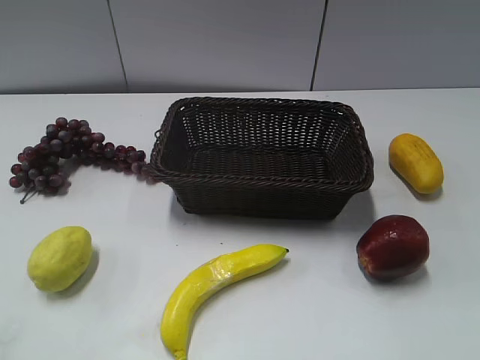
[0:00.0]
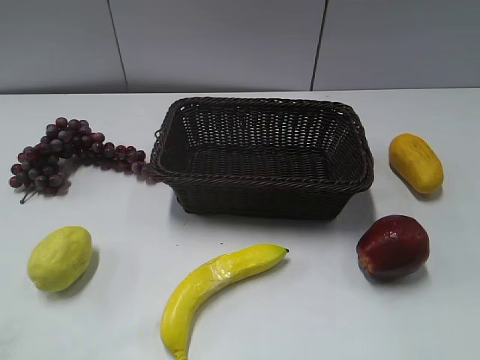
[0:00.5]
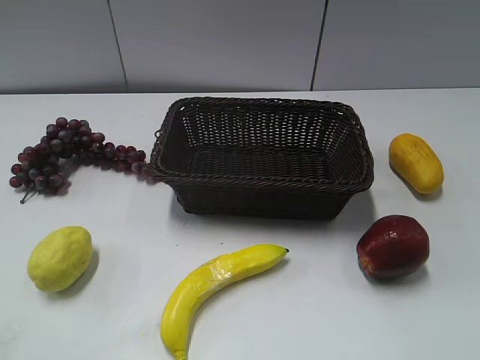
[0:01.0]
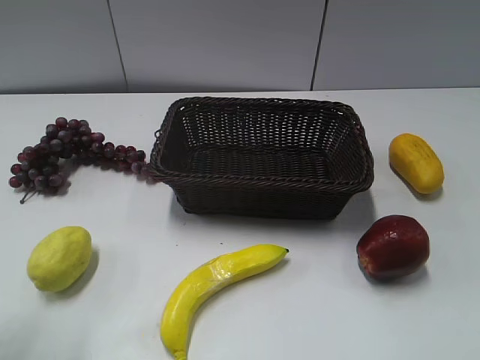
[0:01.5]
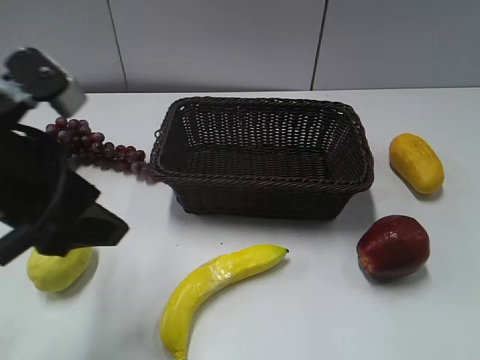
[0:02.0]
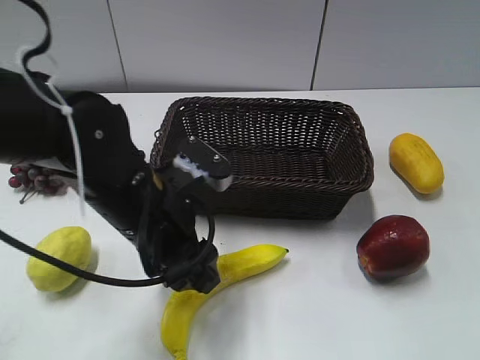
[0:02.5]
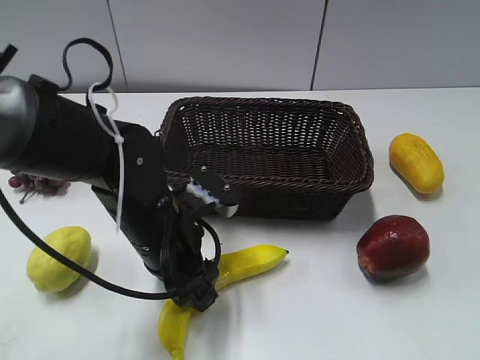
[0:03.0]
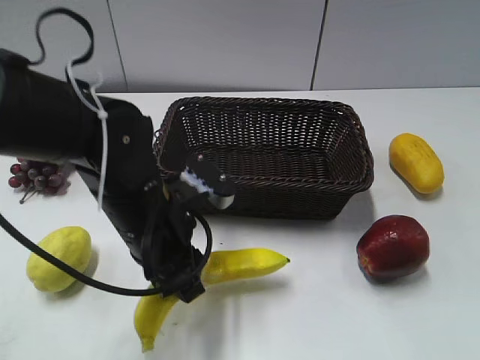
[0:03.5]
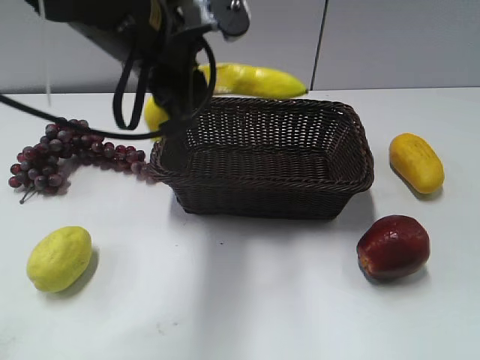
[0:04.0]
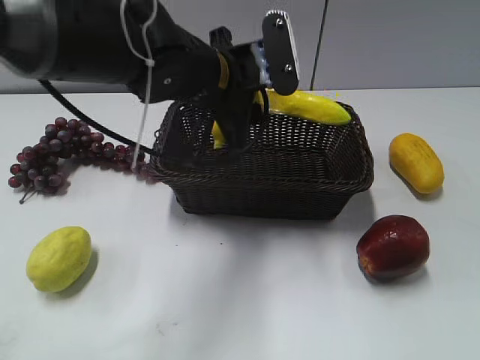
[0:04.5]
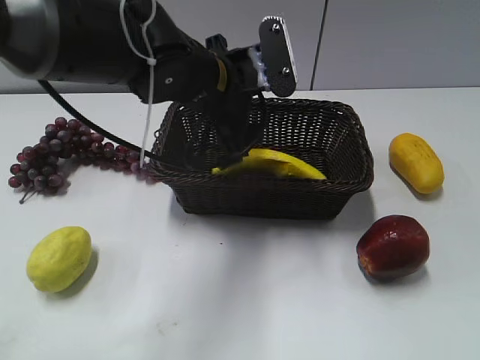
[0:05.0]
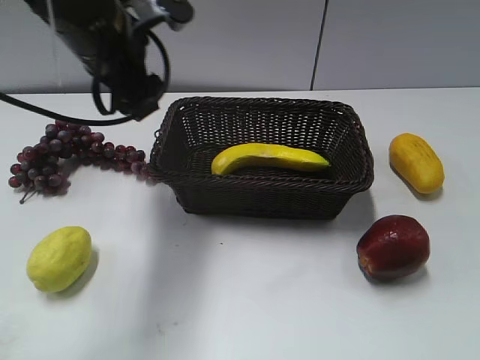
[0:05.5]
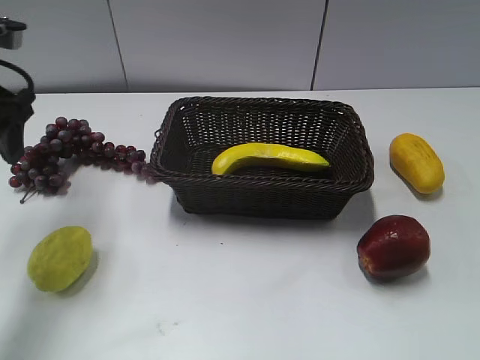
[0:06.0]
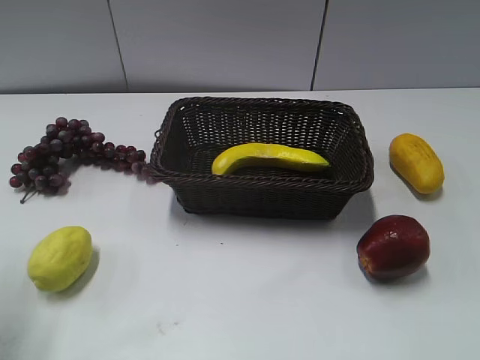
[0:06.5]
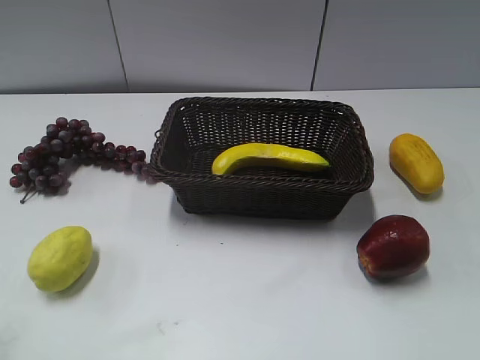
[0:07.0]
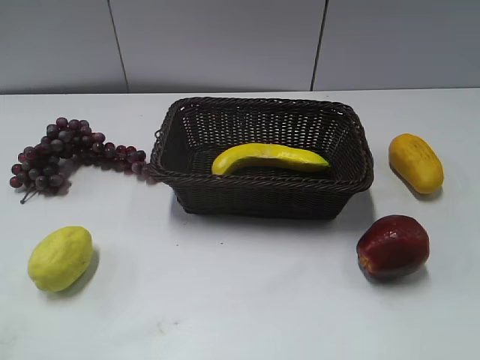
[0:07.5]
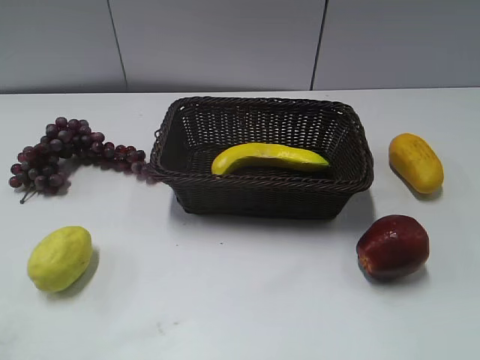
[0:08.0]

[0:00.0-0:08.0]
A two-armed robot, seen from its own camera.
Step, 0:02.0 to 0:03.0: Grasp the banana with left gripper.
Step, 0:03.5 to 0:05.0: Place the banana in the basket with left gripper.
0:02.0 to 0:04.0: The left gripper is displaced forward and to the right by roughly 15 cm, travels downward and back again, roughly 15 cm each way, and closes.
0:04.0 to 0:06.0: The left gripper is displaced to the left by about 20 cm, and opens.
0:06.0 to 0:08.0: The left gripper goes about 35 cm backward.
